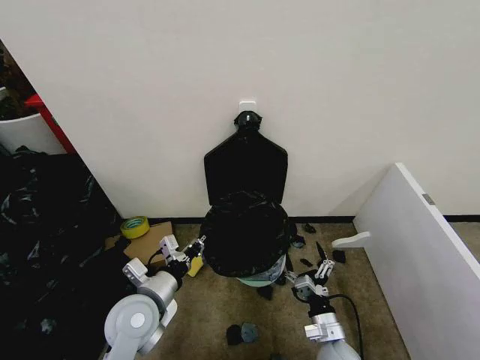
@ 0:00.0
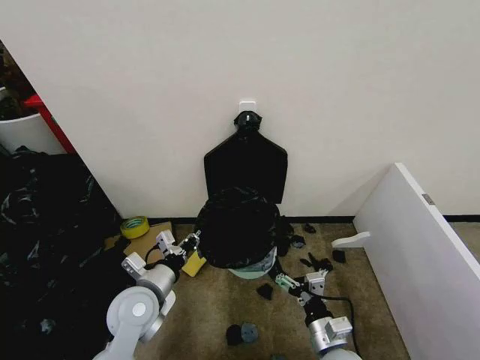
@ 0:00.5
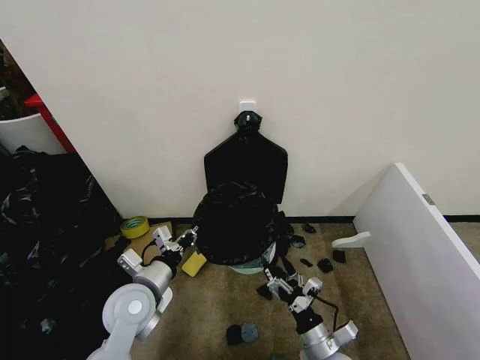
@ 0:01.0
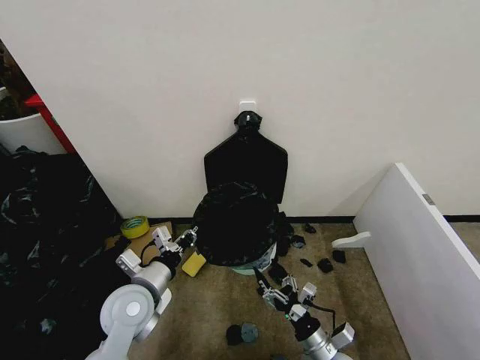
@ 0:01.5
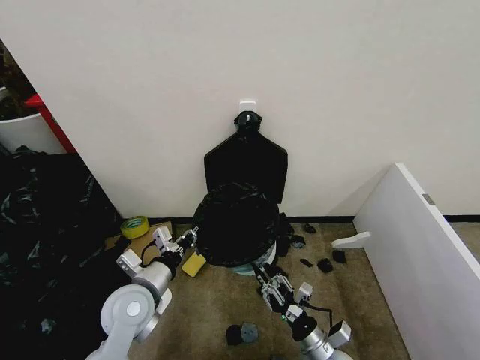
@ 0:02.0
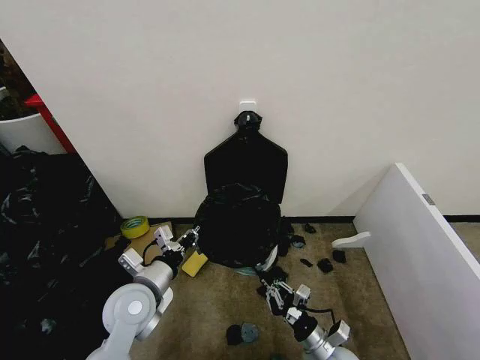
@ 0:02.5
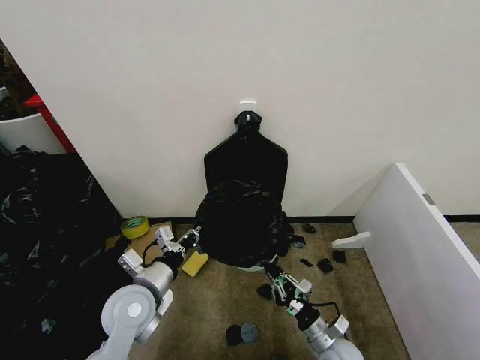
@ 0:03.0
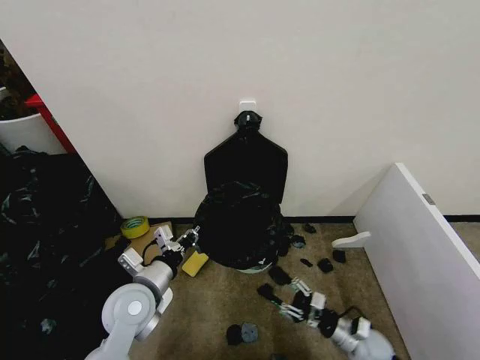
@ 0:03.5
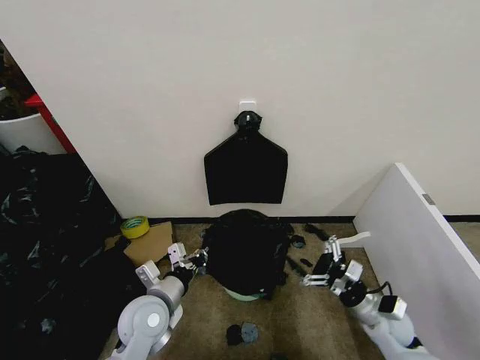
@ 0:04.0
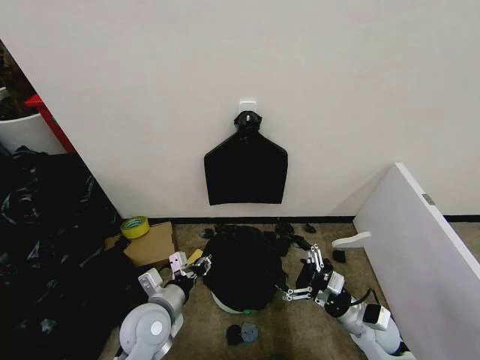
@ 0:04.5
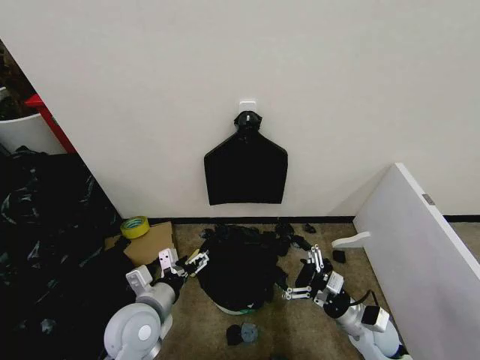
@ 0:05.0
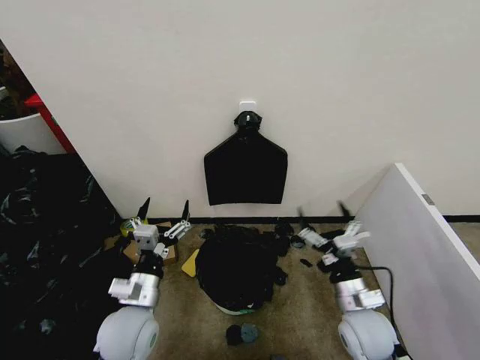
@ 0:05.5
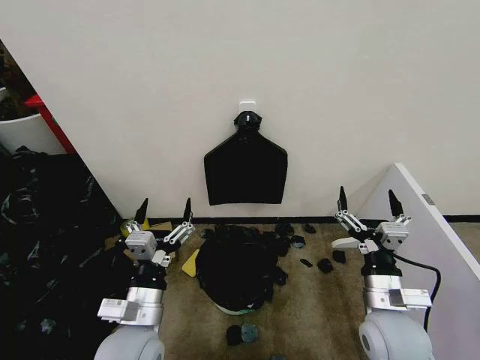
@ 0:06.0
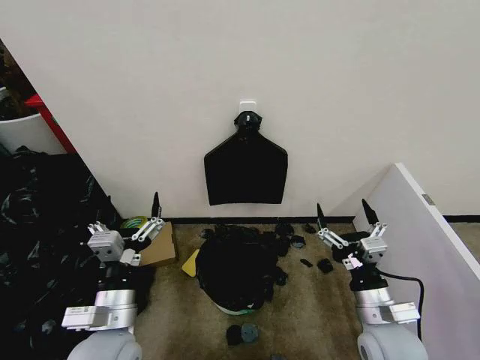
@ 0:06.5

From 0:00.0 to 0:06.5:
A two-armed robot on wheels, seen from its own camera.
Task of the whole recording: Place the garbage bag over the trash bin.
From 0:00.0 to 0:02.0: The right gripper closes.
From 0:02.0 to 0:04.5: The right gripper heads to the right, forward and upward, covering approximately 15 cm, and opens up. The left gripper moves about 5 cm, and opens.
From 0:04.5 to 0:06.5: Both grippers travel together upward and backward, some 10 cm. The left gripper opens its fingers.
